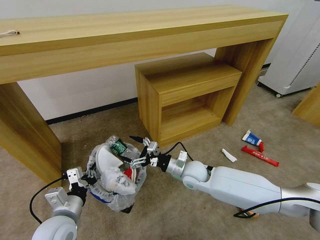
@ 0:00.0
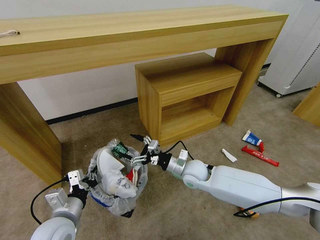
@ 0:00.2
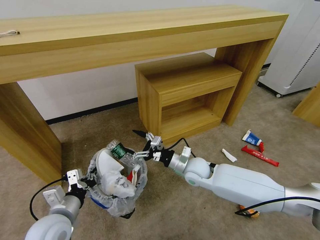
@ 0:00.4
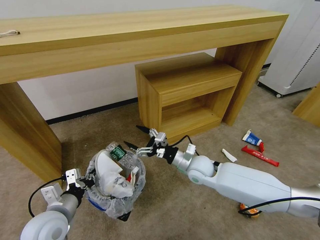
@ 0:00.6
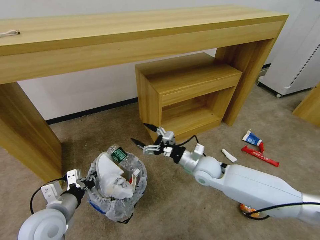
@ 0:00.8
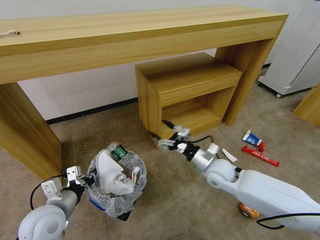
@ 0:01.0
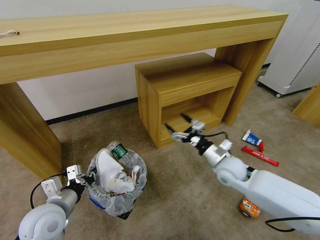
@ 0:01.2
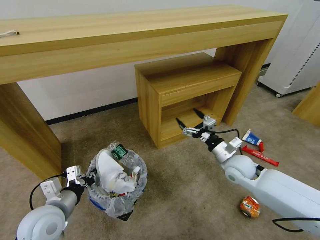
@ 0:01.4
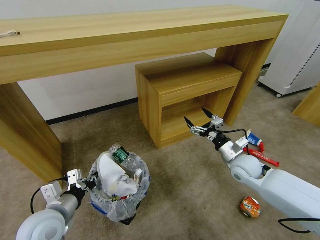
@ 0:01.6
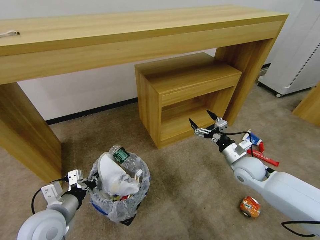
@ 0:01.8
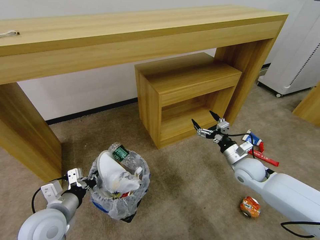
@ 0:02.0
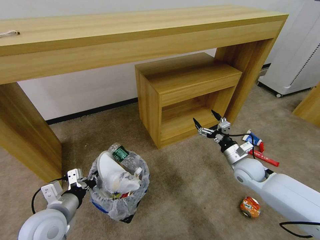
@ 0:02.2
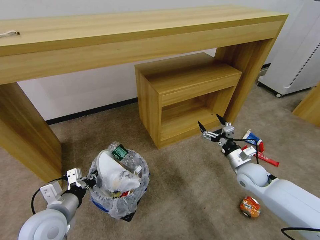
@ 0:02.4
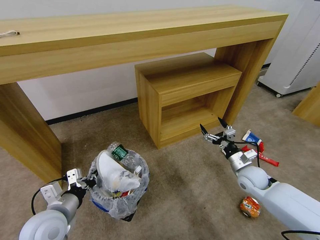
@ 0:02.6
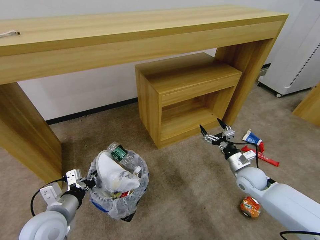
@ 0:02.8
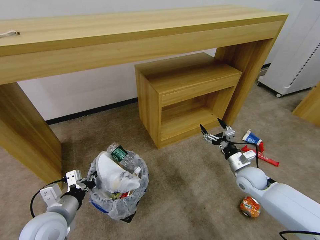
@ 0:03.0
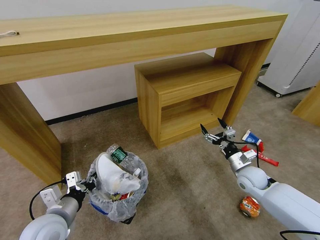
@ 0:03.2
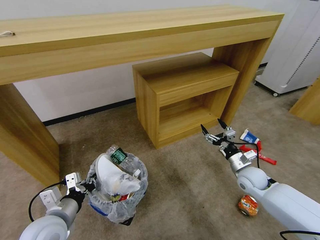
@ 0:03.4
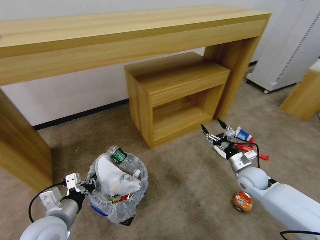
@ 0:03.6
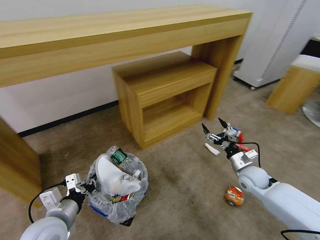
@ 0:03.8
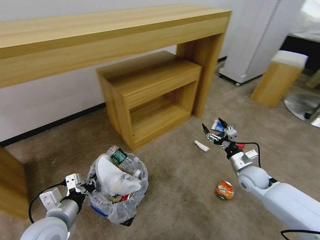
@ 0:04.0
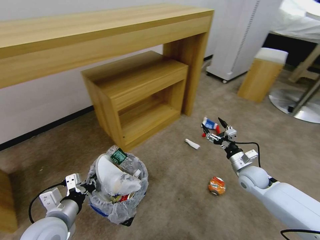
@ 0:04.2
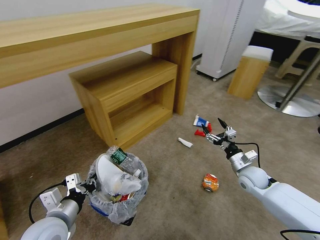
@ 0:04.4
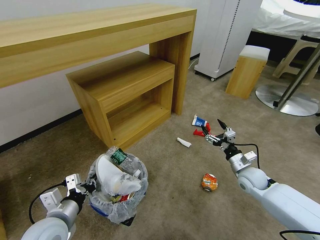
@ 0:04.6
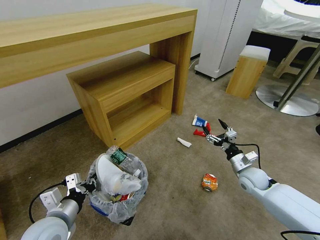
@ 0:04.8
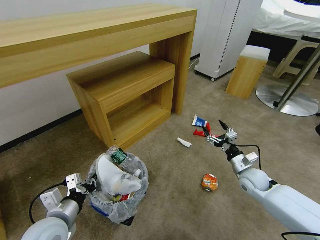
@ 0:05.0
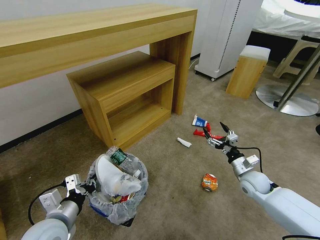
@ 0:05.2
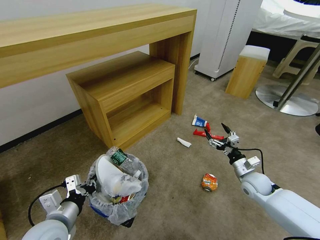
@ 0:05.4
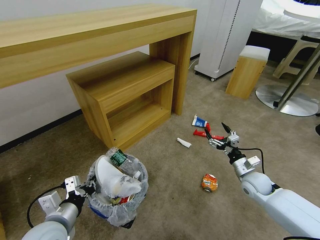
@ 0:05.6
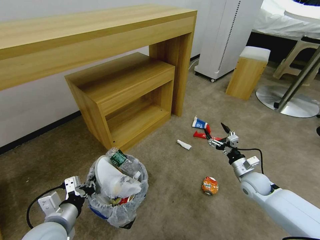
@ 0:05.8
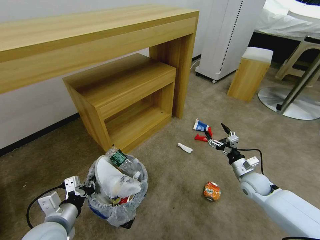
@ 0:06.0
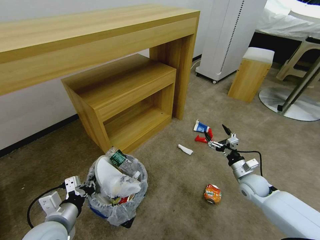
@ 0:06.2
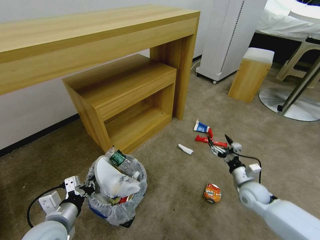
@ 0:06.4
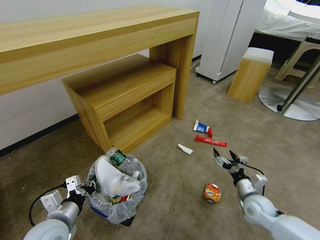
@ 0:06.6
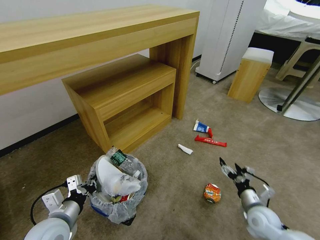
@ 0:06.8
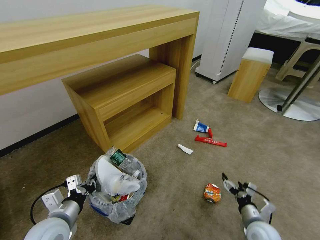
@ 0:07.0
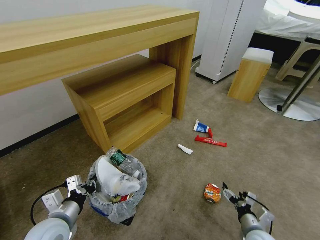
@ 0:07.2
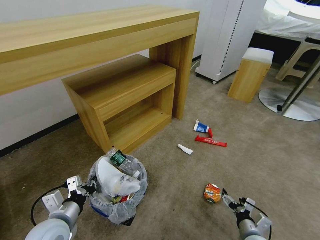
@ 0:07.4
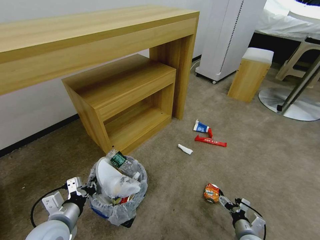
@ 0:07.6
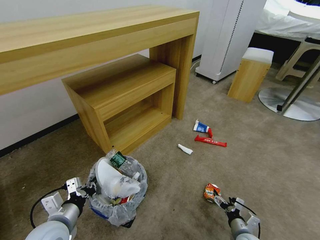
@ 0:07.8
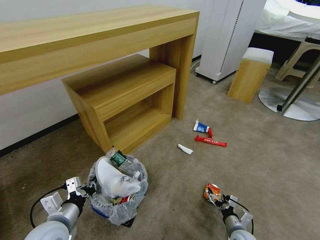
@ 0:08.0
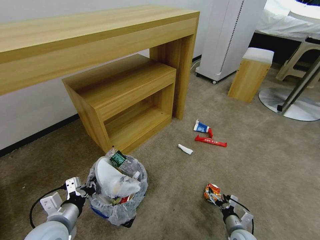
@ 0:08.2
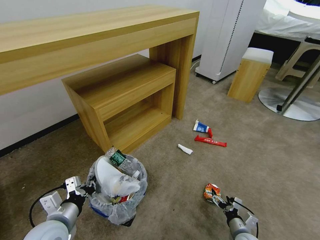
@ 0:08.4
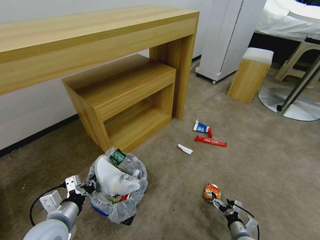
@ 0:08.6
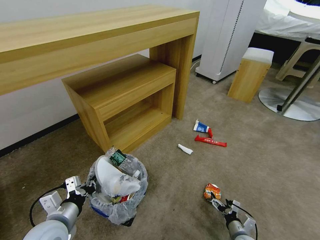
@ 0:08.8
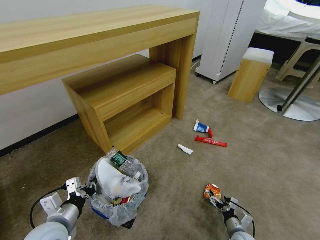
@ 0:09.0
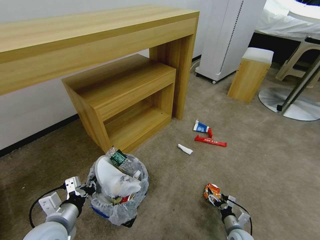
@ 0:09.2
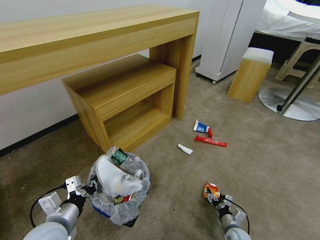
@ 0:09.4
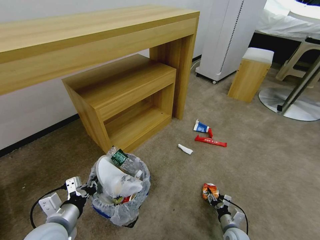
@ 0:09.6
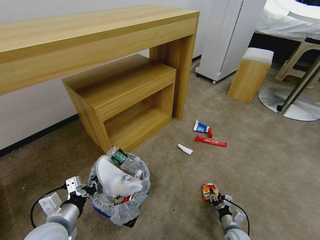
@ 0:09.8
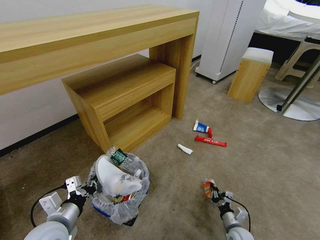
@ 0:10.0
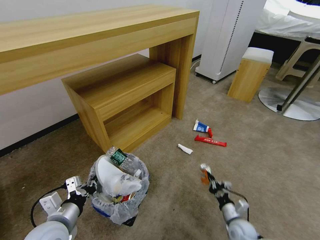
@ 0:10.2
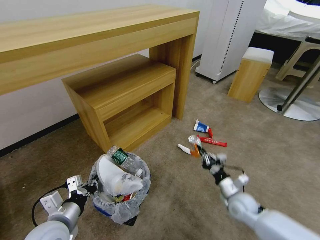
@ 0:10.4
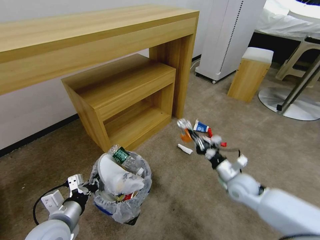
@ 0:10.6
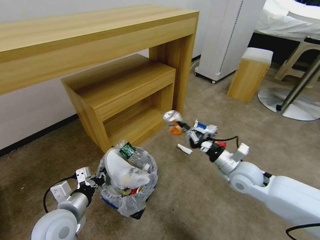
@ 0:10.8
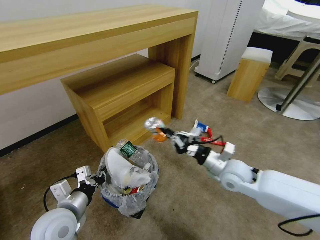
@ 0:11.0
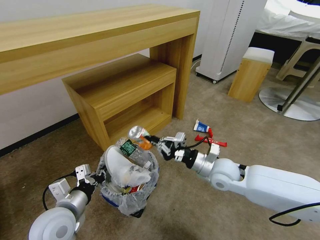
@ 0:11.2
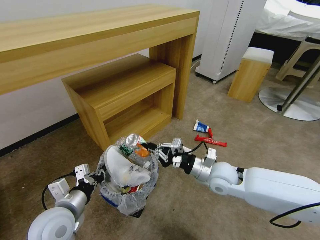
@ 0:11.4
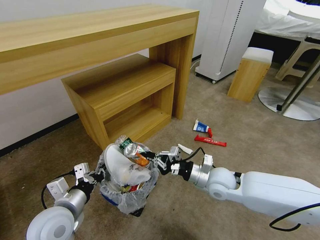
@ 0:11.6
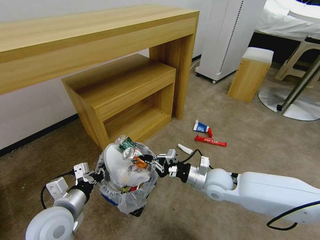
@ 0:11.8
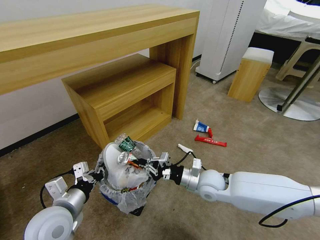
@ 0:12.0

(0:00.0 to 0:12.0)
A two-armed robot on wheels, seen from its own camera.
Task of the whole recording: Pick up the trash bin and place the garbage on the floor into it.
0:00.0 - 0:01.6: The right gripper moves to the right, some 15 cm.
0:01.6 - 0:03.0: The right gripper shifts approximately 5 cm downward.
0:04.4 - 0:06.0: The grippers move only a little.
0:06.0 - 0:07.6: The right gripper goes about 20 cm backward and downward.
0:07.6 - 0:09.0: The right gripper moves downward, approximately 5 cm.
0:09.0 - 0:10.4: The right gripper travels upward and forward by roughly 15 cm, and closes.
0:10.4 - 0:12.0: The right gripper goes about 15 cm to the left and upward.

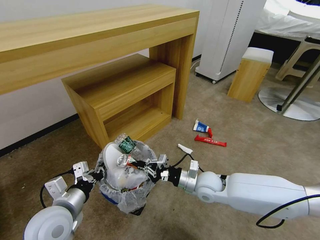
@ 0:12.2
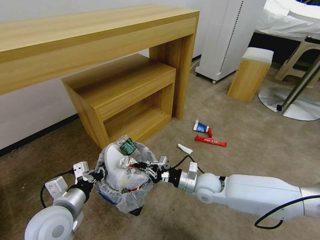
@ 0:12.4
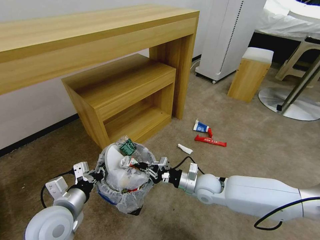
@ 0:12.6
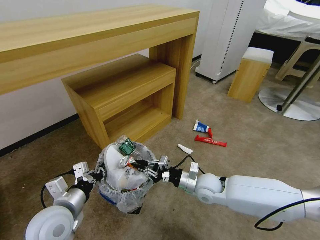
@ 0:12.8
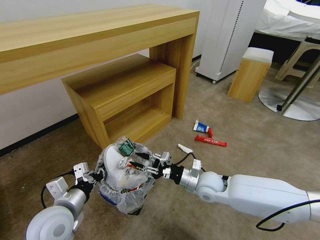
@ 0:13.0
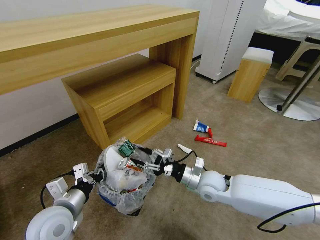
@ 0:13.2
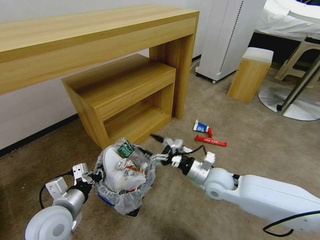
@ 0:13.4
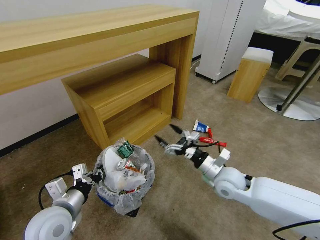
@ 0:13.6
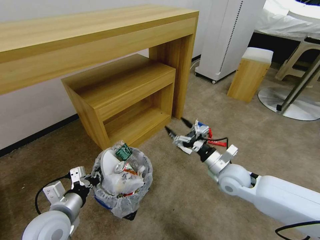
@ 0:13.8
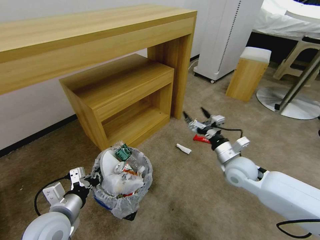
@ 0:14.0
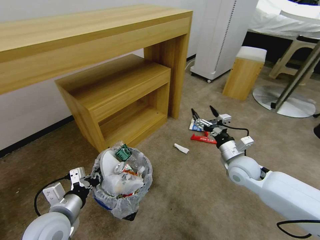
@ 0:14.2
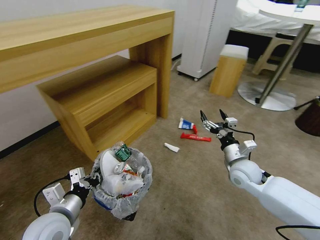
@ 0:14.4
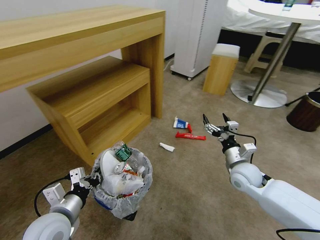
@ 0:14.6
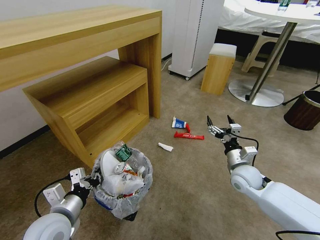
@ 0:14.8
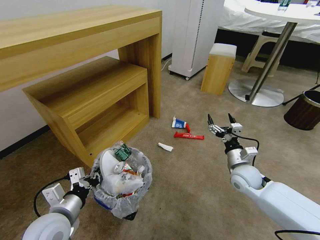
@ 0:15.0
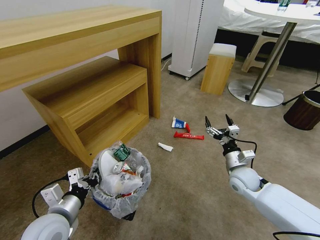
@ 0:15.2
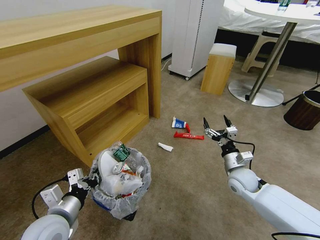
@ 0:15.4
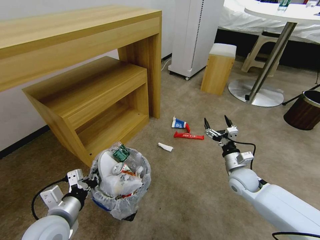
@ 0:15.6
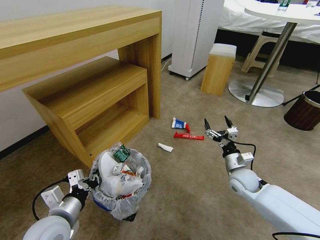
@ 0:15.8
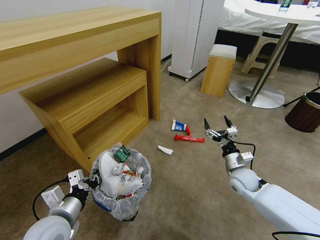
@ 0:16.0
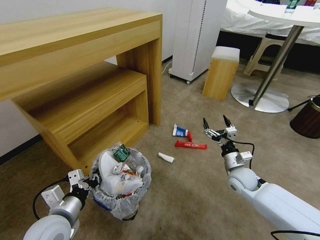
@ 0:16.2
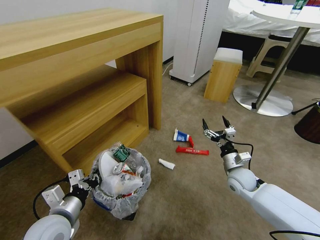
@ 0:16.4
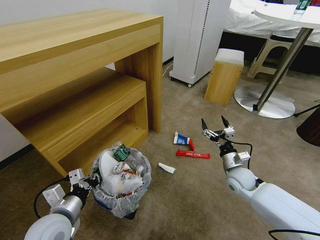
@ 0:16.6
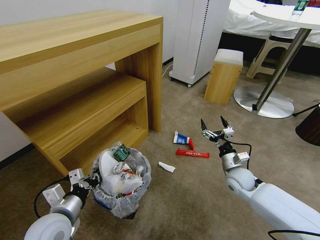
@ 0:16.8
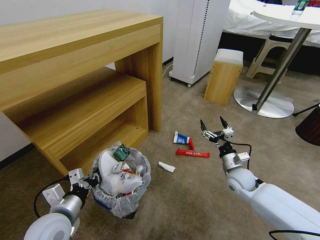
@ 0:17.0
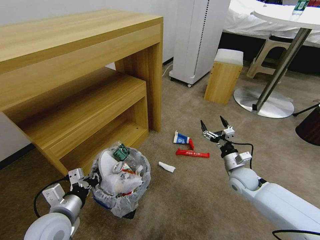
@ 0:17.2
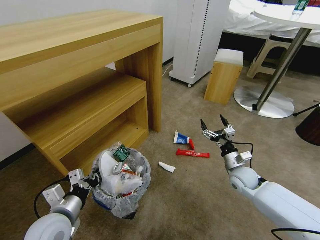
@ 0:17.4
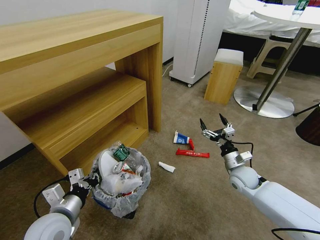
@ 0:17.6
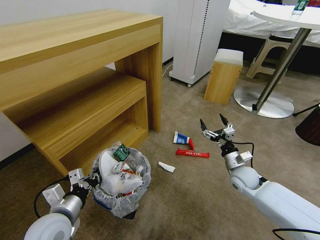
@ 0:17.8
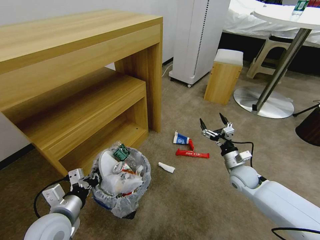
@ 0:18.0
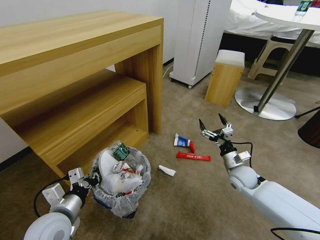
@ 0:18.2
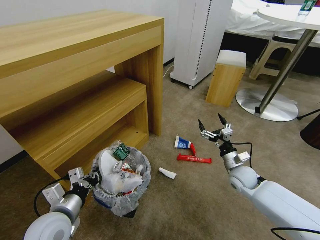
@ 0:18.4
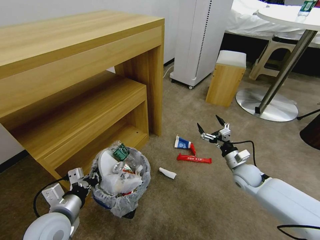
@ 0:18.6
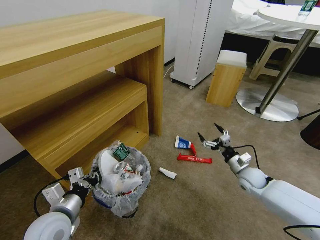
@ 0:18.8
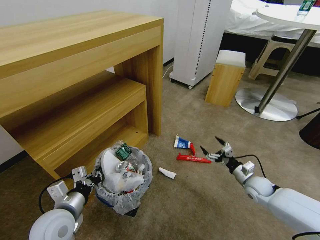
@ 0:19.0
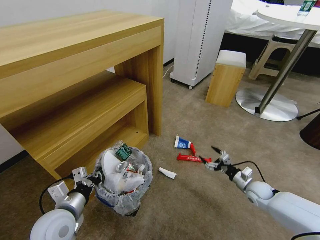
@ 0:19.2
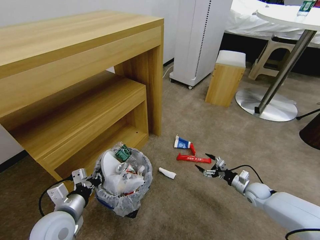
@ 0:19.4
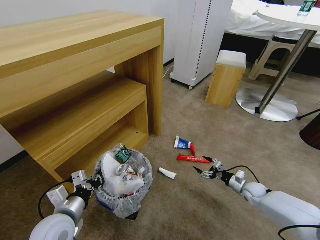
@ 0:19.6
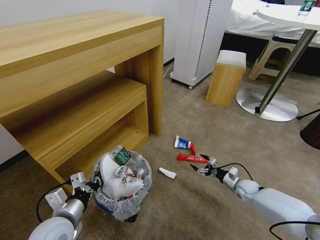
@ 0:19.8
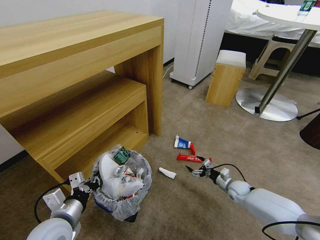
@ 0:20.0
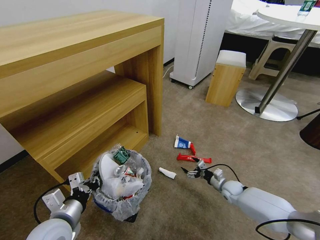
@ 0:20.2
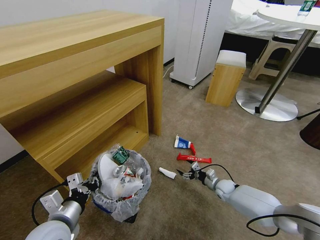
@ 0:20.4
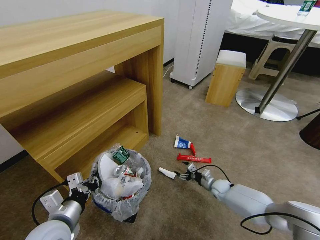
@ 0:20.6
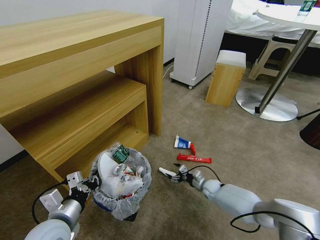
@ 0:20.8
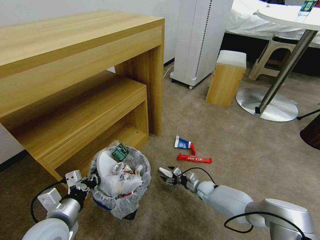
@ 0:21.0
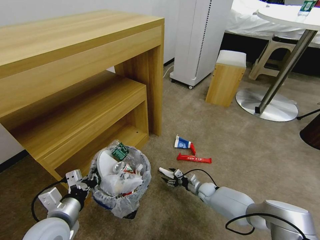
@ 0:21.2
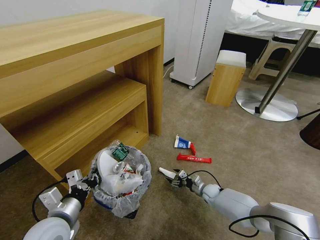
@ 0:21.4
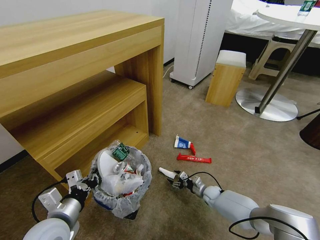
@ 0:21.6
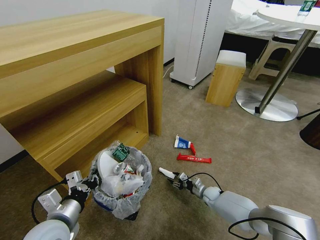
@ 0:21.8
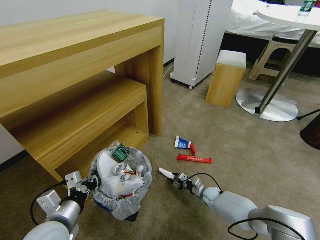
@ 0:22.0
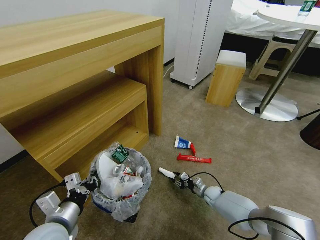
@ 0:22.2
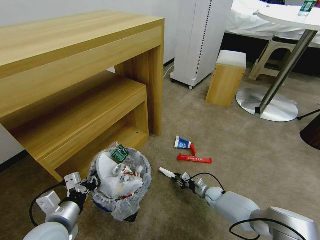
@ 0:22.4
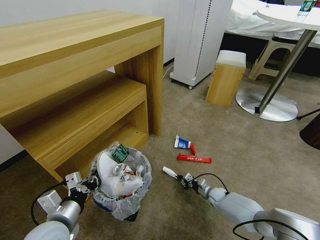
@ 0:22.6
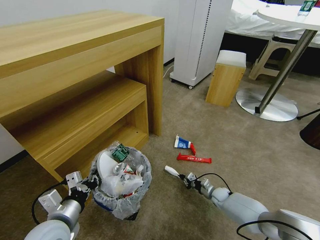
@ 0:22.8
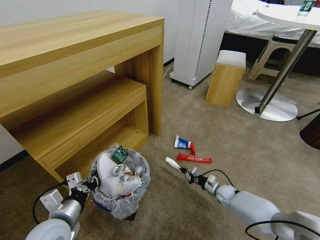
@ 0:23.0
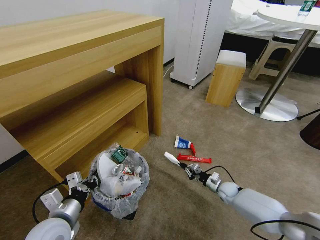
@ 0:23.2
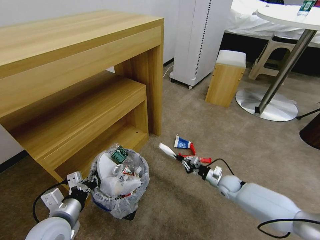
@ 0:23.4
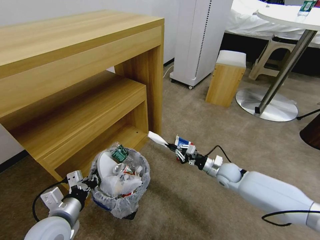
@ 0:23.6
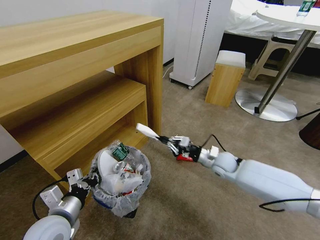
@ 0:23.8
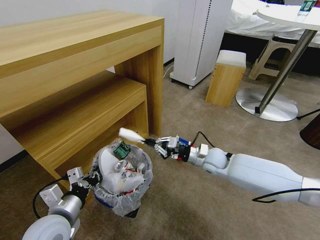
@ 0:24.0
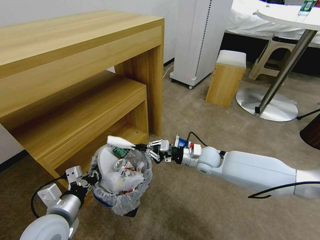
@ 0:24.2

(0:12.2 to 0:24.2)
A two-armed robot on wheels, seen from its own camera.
Task of the whole recording: Pick up the trash bin and place the garbage on the floor into it.
0:12.2 - 0:13.8: The right gripper is displaced to the right by some 5 cm, and opens its fingers.
0:13.8 - 0:15.2: The right gripper heads to the right, covering roughly 5 cm.
0:16.6 - 0:18.2: The grippers move only a little.
0:18.2 - 0:19.8: The right gripper heads downward and to the right, covering some 15 cm.
0:19.8 - 0:21.2: The right gripper heads to the left and downward, covering approximately 15 cm.
0:21.2 - 0:22.6: The right gripper moves approximately 5 cm, and closes up.
0:22.6 - 0:24.2: The right gripper shifts some 30 cm upward.
